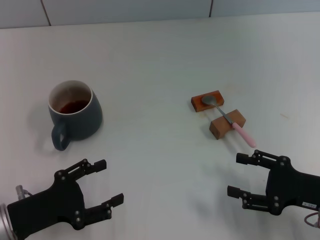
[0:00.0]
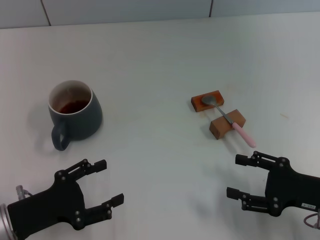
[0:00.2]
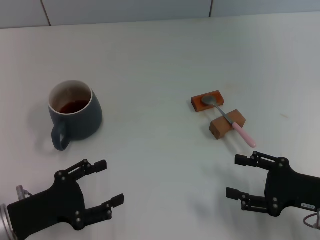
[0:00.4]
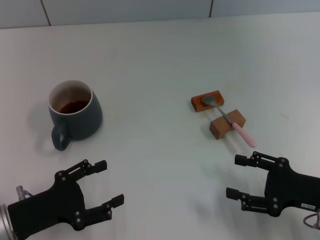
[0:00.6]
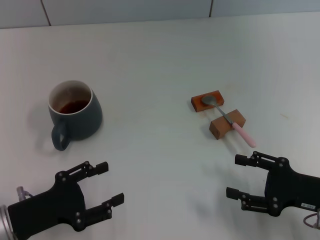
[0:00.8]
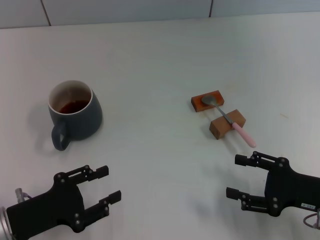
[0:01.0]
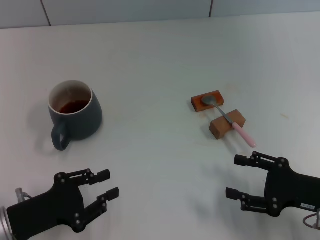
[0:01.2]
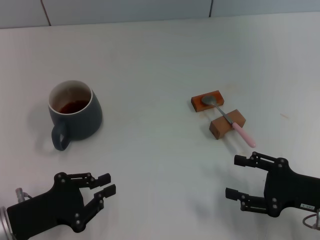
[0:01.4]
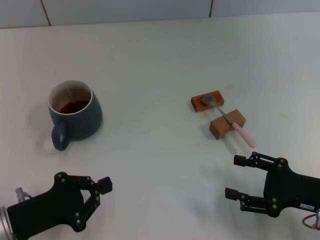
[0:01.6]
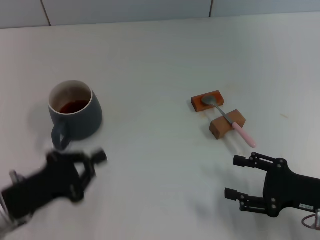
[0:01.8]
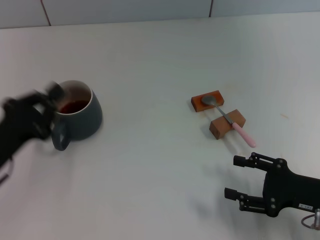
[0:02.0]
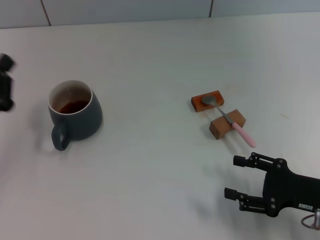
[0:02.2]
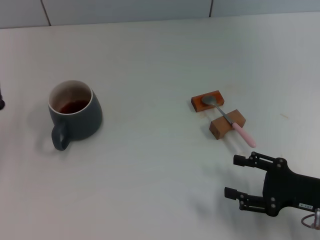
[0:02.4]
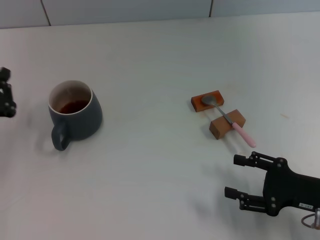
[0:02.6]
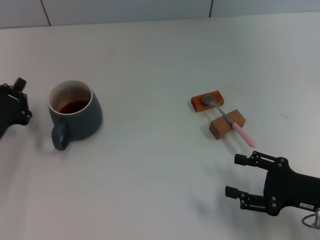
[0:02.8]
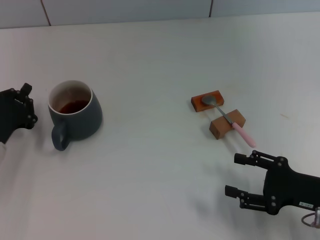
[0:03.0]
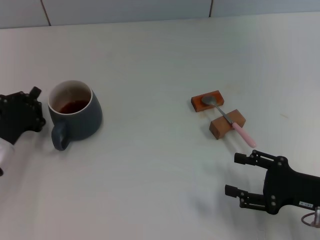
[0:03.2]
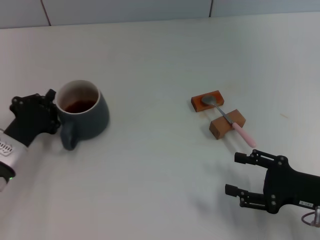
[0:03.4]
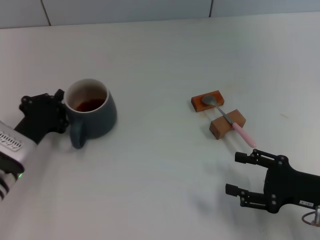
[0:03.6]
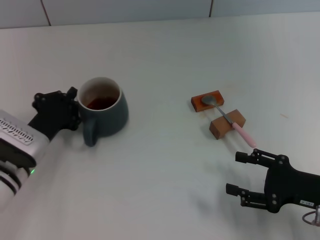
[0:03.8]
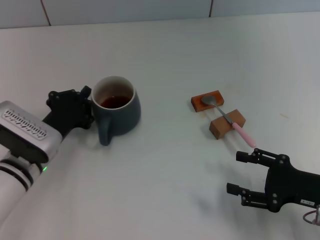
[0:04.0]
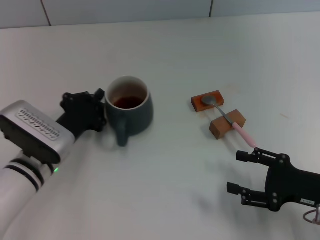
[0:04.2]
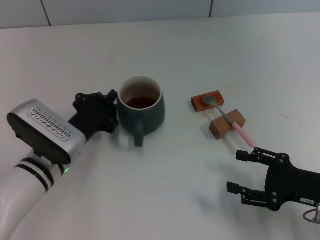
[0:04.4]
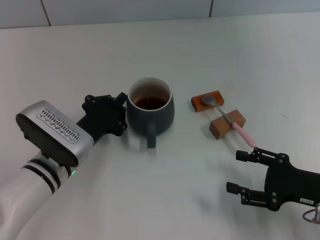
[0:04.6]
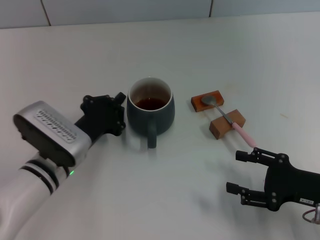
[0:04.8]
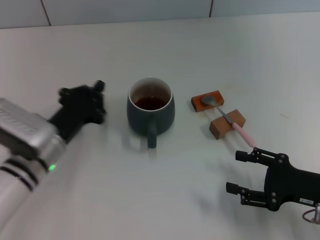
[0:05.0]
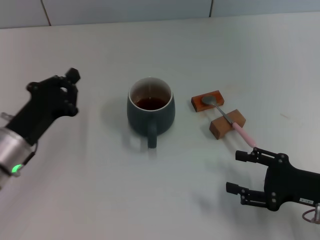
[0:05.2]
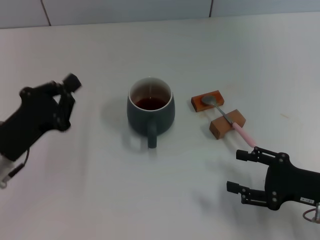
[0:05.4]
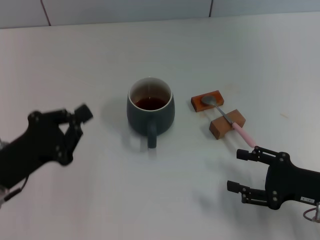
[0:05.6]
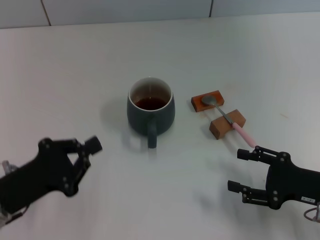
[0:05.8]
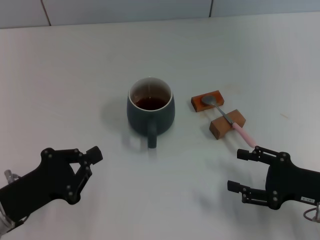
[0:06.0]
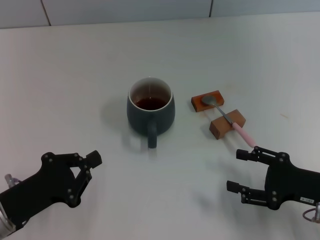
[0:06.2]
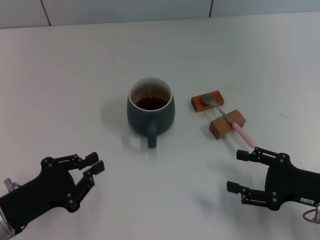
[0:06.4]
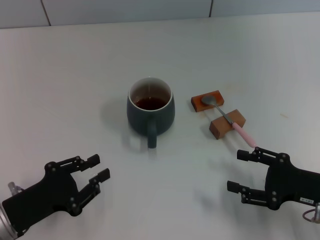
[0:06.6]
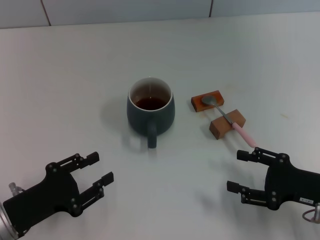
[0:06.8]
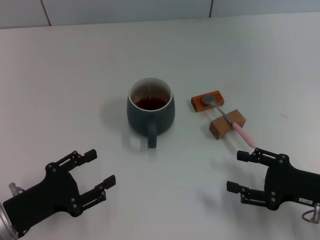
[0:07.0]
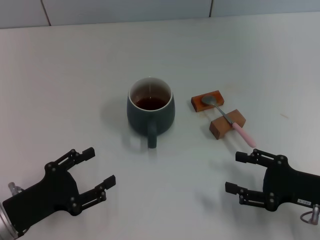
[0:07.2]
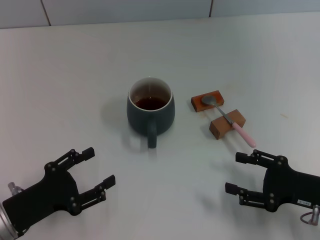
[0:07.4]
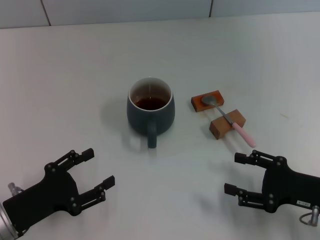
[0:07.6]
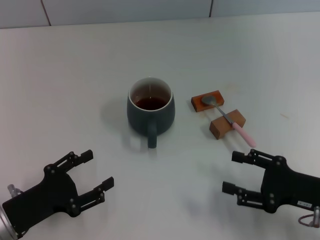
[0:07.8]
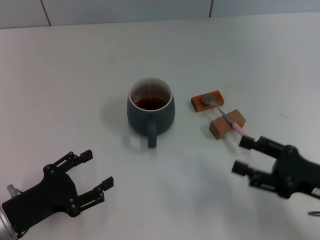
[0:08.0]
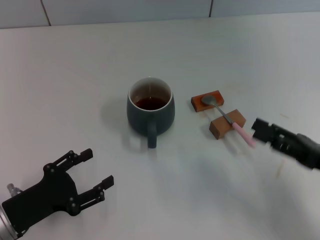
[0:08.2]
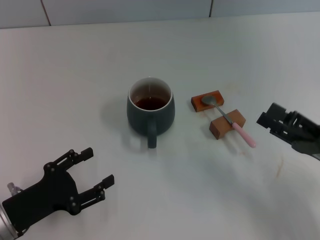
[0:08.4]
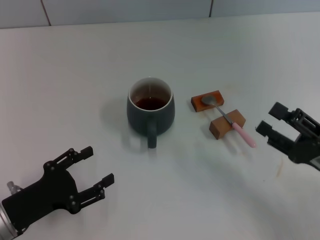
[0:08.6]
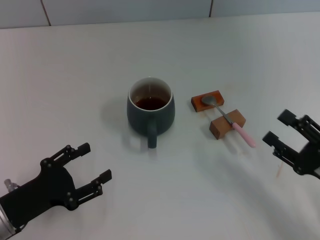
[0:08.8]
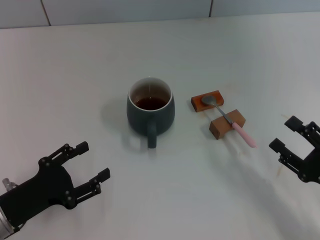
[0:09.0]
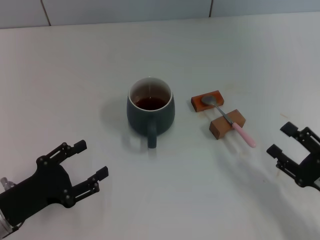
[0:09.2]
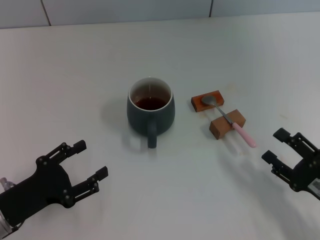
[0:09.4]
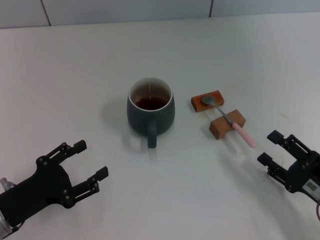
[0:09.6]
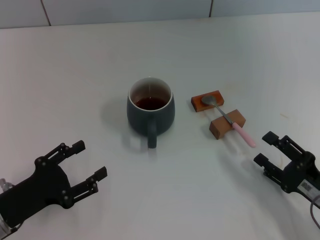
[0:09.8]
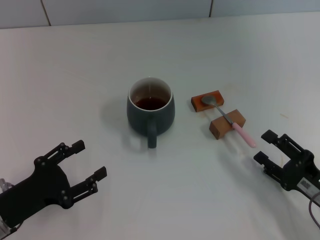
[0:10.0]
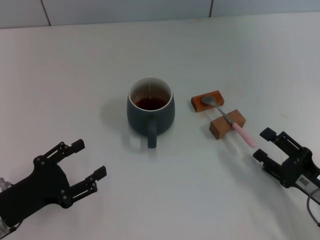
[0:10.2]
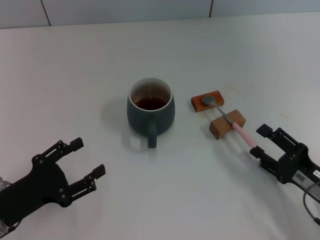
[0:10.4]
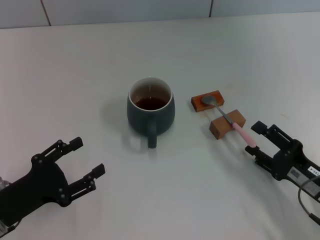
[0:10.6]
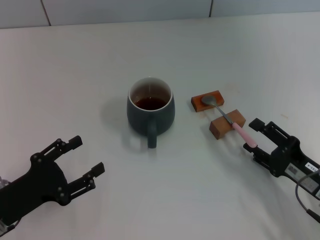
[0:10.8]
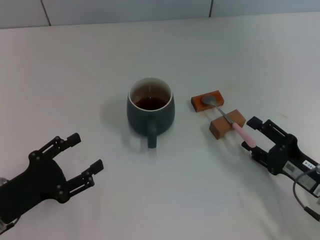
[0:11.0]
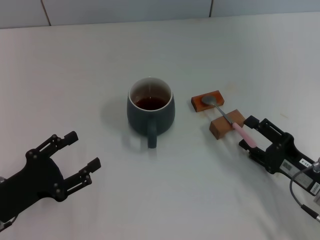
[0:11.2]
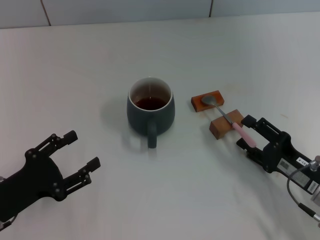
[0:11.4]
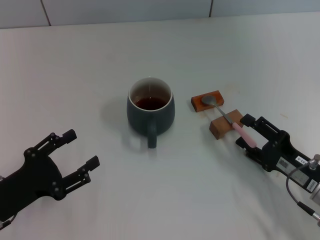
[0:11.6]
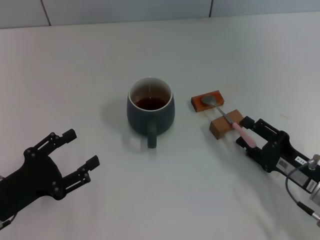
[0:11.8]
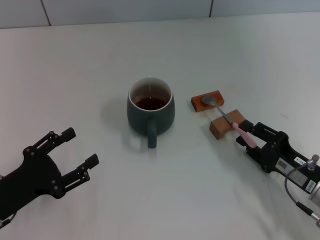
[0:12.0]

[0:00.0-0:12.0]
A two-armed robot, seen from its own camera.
Task of the whole recording: Move the grey cup to the center, lift the pink spoon, stir it three times in the cup, and put the spoon into the cup.
Step, 0:00.0 to 0:05.2: Move the cup with coffee to the center of view with the left gripper.
0:00.0 to 0:01.6: The left gripper closes its fingers.
0:01.6 to 0:03.0: The left gripper heads forward, covering approximately 10 cm.
0:03.0 to 0:04.4: The left gripper travels to the right by approximately 10 cm.
0:04.4 to 0:06.0: The left gripper goes some 15 cm to the left and backward.
0:06.0 to 0:07.6: The left gripper opens.
0:09.0 to 0:10.4: The grippers stay close to where they were, moving slightly.
0:10.4 to 0:12.0: The grippers move only a little.

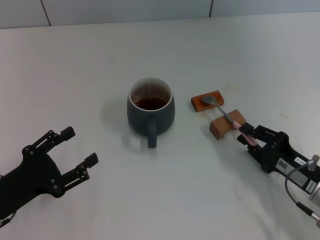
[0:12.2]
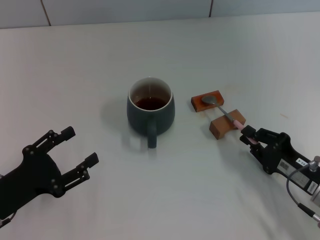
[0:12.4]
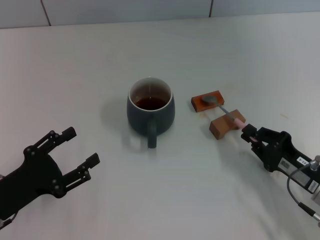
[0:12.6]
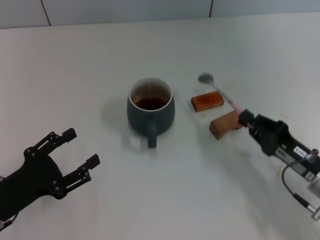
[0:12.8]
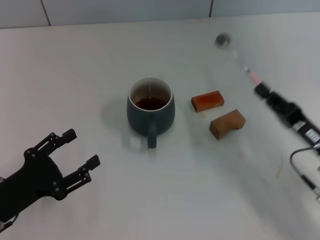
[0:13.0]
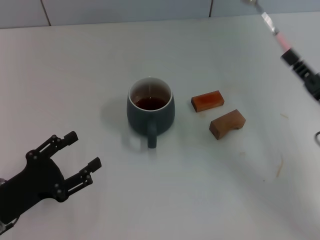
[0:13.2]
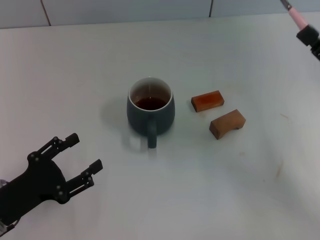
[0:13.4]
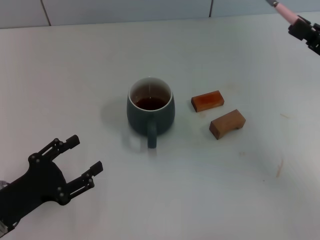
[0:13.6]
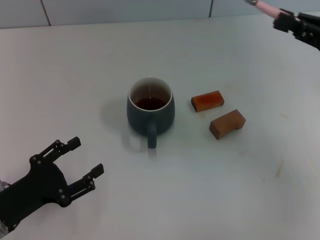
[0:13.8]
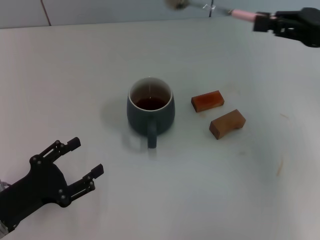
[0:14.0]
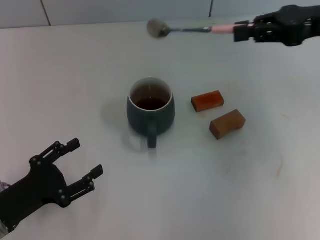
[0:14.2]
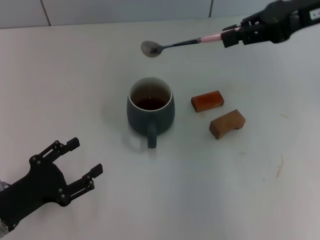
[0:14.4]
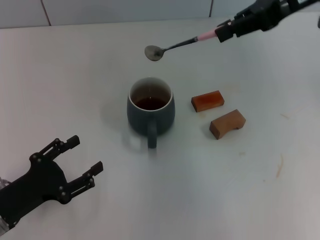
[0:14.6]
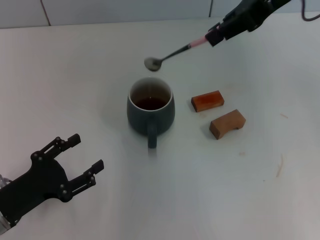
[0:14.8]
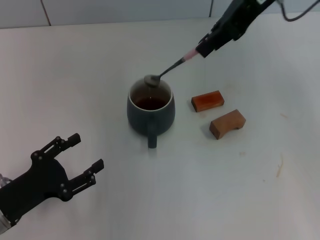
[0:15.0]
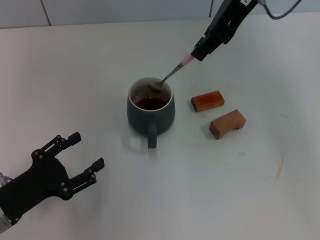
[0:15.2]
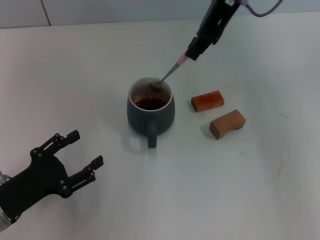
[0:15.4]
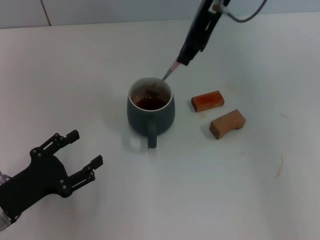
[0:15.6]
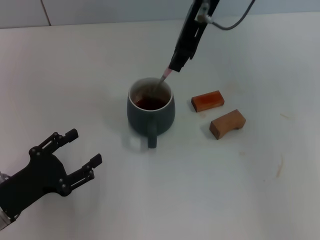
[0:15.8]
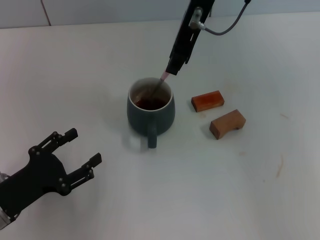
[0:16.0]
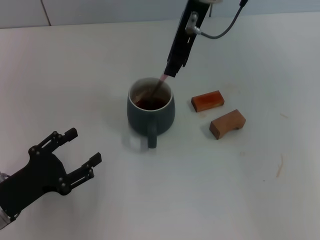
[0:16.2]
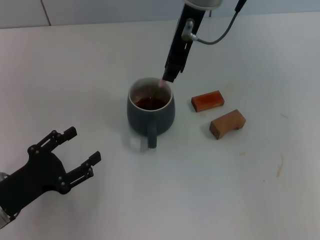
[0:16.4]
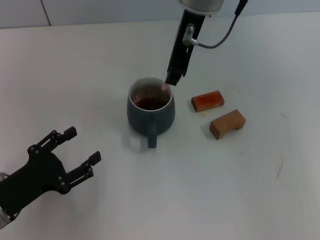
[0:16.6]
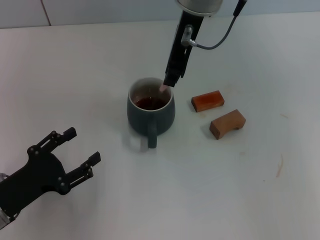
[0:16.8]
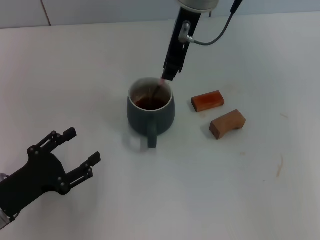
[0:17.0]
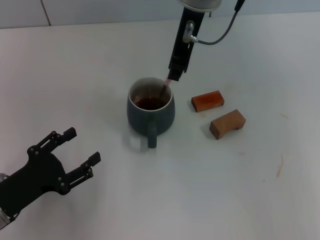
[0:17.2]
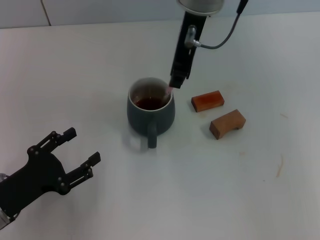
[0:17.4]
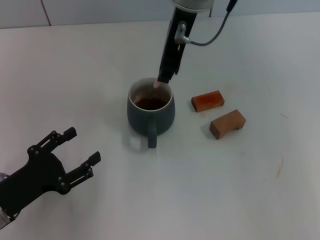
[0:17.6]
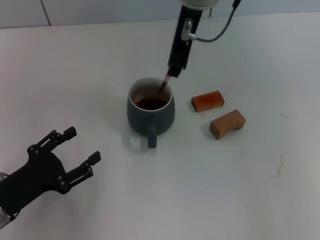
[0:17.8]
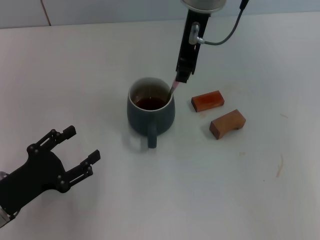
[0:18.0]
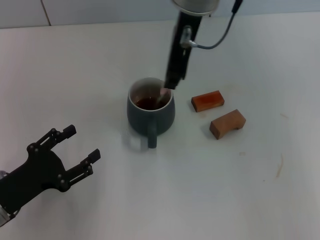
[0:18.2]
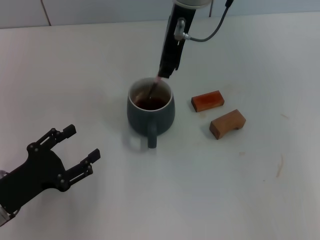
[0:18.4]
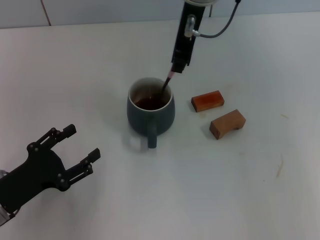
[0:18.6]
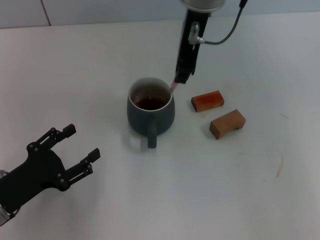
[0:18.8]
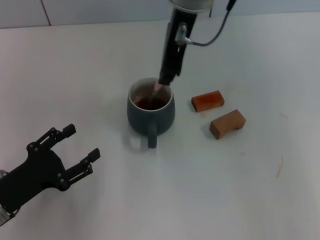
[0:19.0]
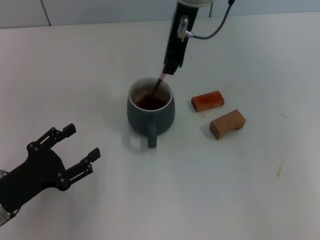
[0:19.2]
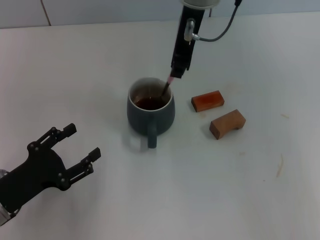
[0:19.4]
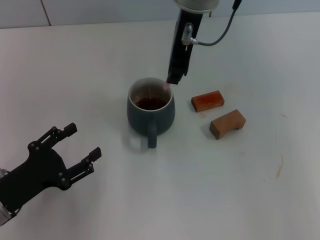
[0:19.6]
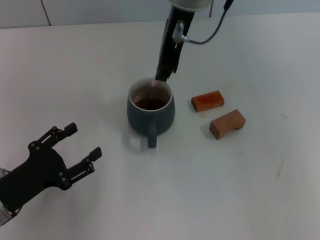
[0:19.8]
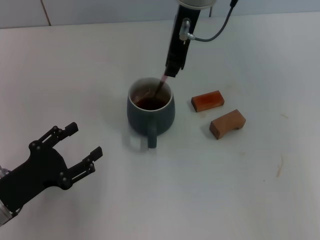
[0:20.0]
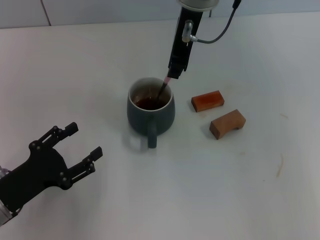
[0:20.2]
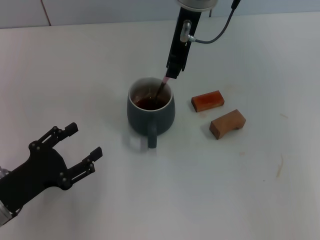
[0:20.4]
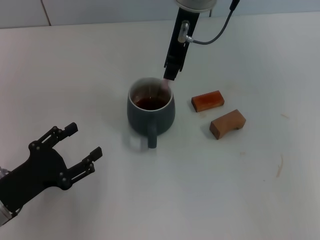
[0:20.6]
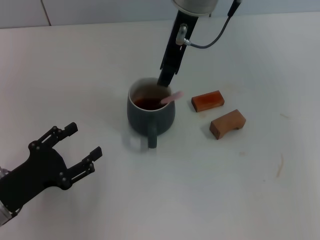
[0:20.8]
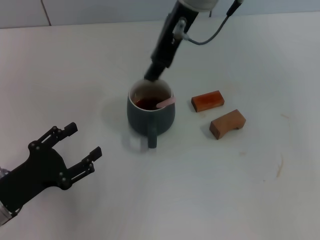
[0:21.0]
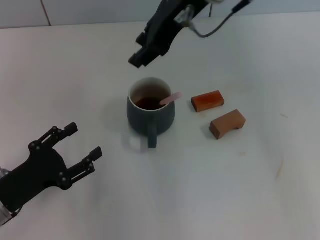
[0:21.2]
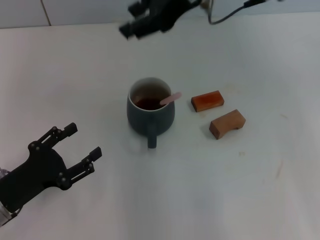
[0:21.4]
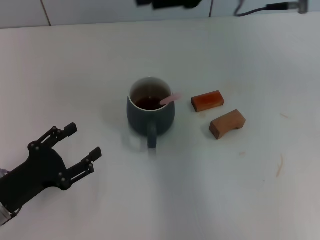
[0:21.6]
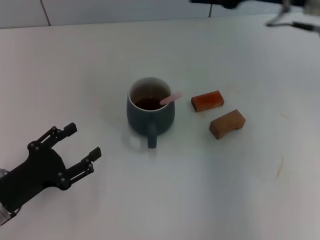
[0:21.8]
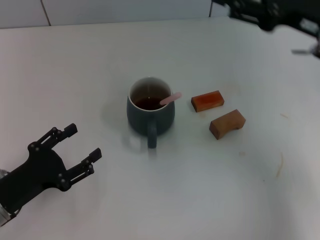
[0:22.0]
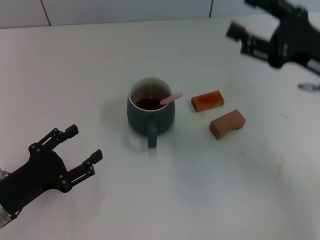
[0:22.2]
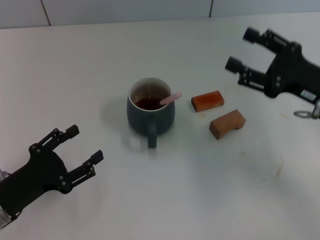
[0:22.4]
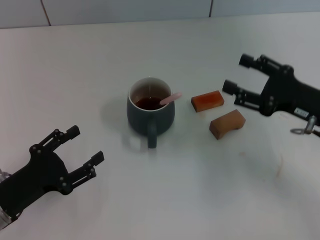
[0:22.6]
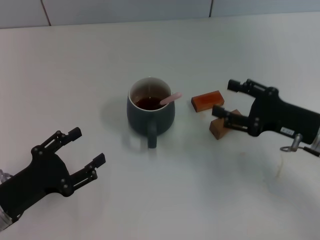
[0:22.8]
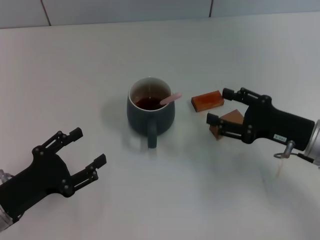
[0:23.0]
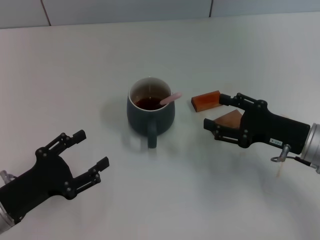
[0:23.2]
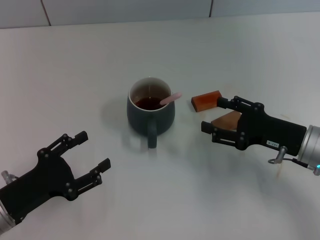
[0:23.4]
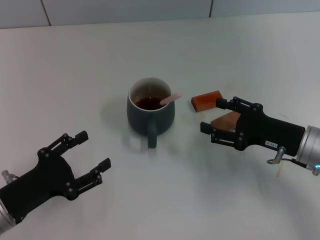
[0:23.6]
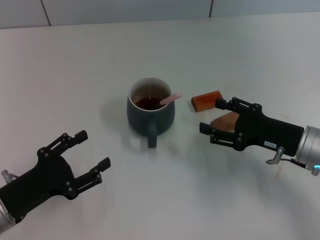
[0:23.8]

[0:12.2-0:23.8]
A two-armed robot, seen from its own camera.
Task of the whole recording: Move the grey cup to the center, lift the pink spoon, stir it three times in the cup, and put the spoon into the cup.
Step, 0:13.0 to 0:21.0: Stir the coffee in the cup with the right gripper.
0:12.2 to 0:13.6: The right gripper moves upward and forward, some 15 cm, and closes up.
0:13.6 to 0:15.0: The right gripper is displaced upward, to the left and forward by about 25 cm.
0:15.0 to 0:16.6: The right gripper goes some 10 cm to the left.
0:16.6 to 0:19.4: There are only small adjustments of the grippers.
0:19.4 to 0:21.0: The right gripper opens up.
0:21.0 to 0:22.4: The right gripper shifts roughly 30 cm to the right, downward and backward, and opens up.
0:22.4 to 0:23.8: The right gripper shifts roughly 5 cm downward.
